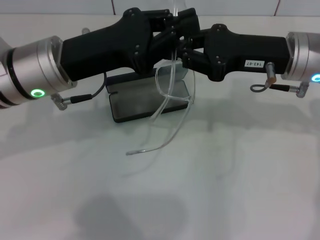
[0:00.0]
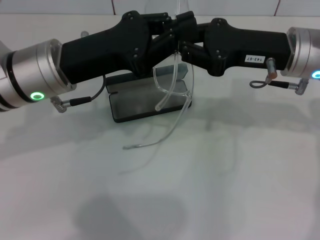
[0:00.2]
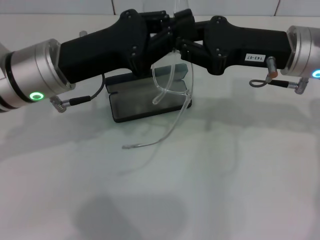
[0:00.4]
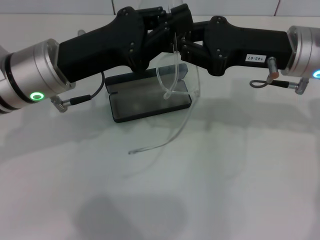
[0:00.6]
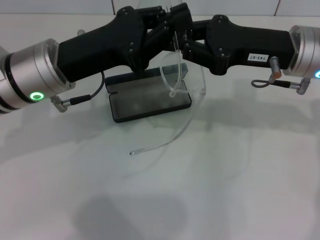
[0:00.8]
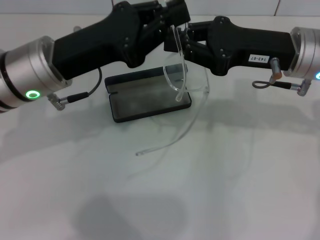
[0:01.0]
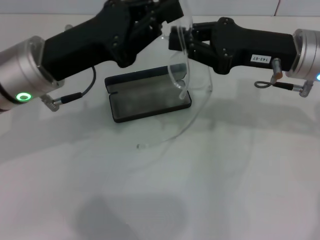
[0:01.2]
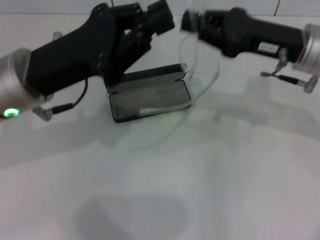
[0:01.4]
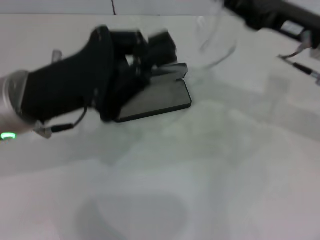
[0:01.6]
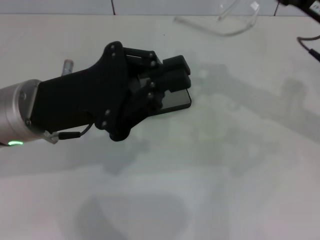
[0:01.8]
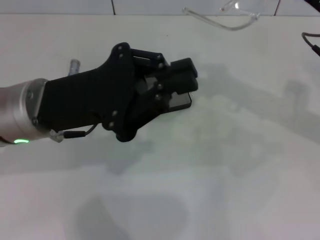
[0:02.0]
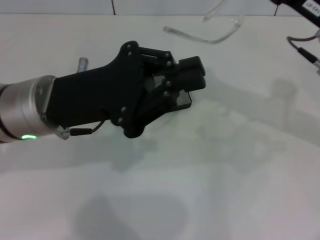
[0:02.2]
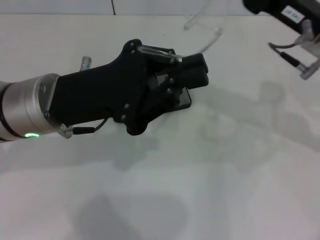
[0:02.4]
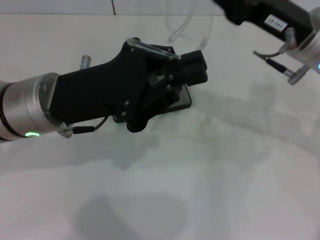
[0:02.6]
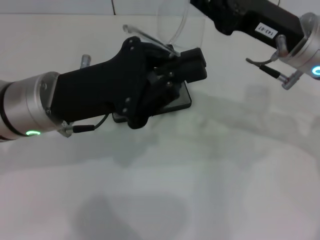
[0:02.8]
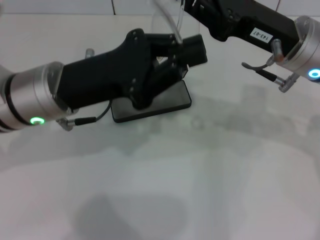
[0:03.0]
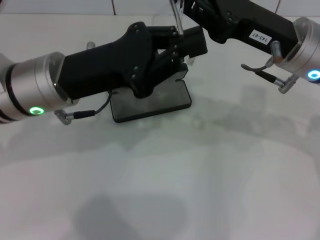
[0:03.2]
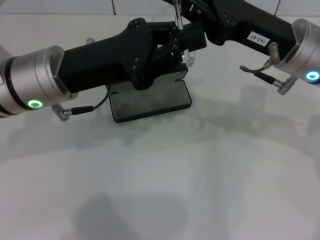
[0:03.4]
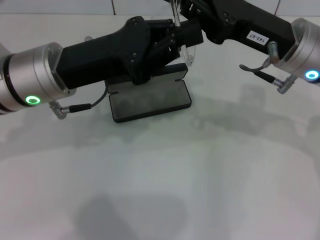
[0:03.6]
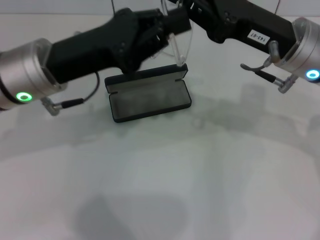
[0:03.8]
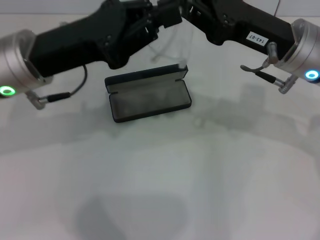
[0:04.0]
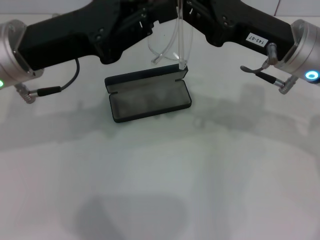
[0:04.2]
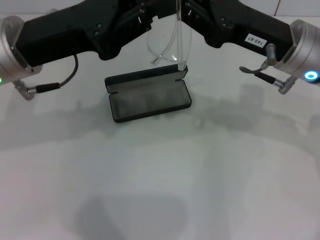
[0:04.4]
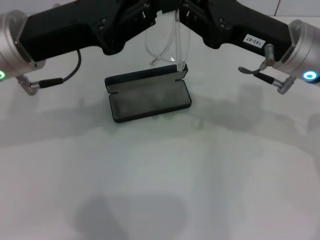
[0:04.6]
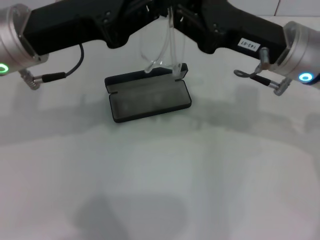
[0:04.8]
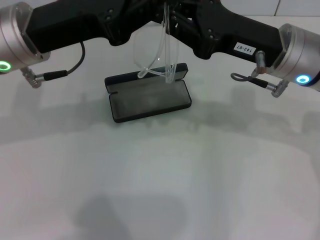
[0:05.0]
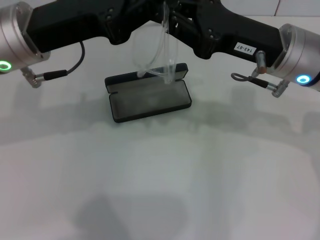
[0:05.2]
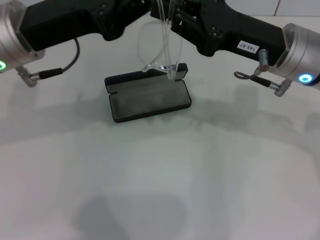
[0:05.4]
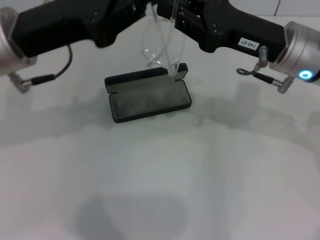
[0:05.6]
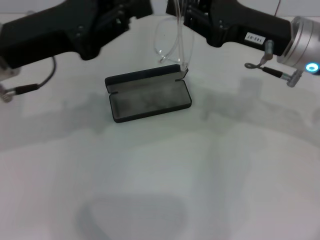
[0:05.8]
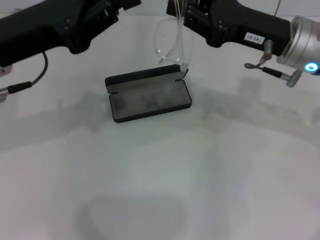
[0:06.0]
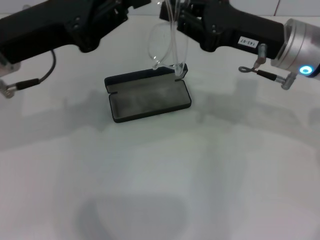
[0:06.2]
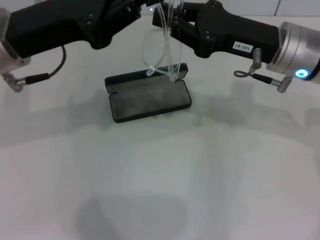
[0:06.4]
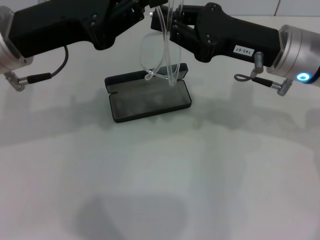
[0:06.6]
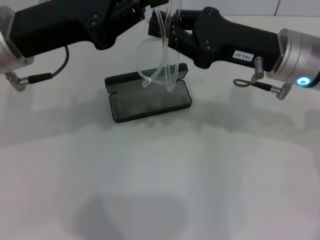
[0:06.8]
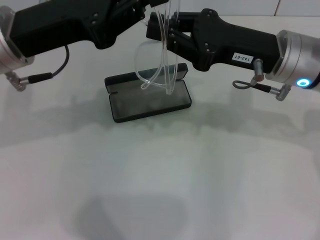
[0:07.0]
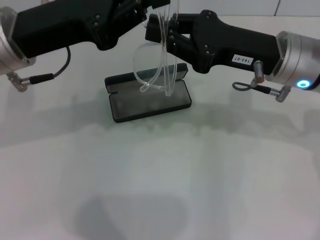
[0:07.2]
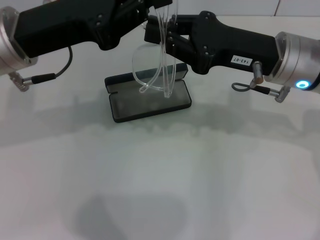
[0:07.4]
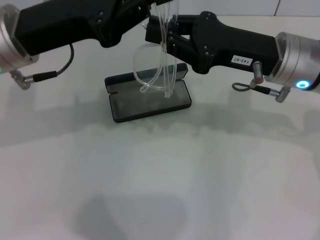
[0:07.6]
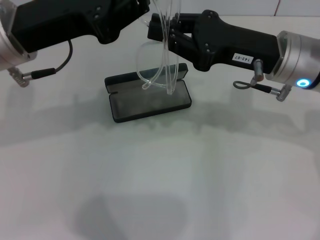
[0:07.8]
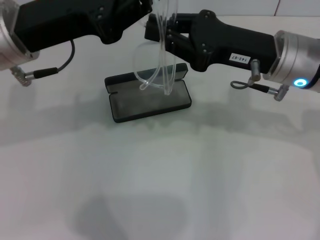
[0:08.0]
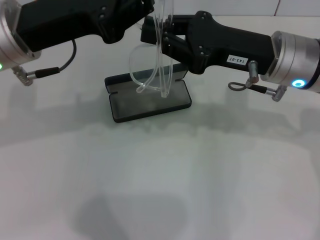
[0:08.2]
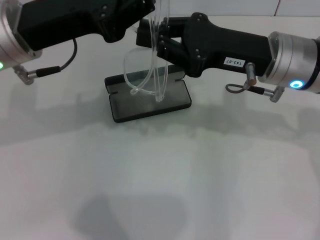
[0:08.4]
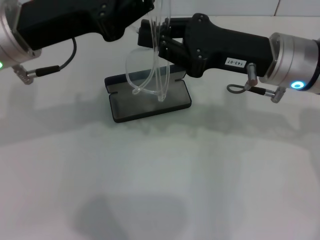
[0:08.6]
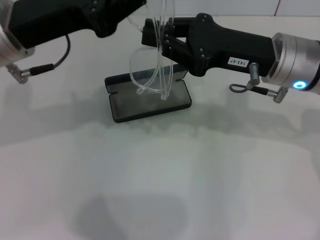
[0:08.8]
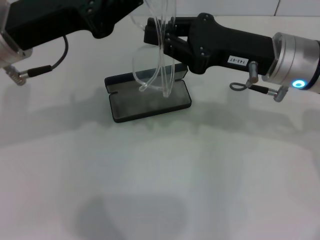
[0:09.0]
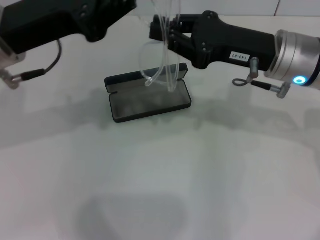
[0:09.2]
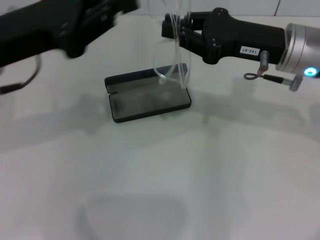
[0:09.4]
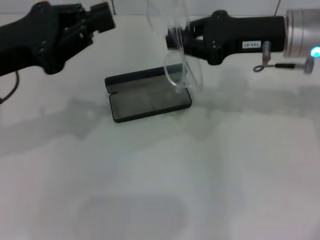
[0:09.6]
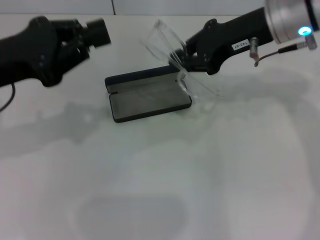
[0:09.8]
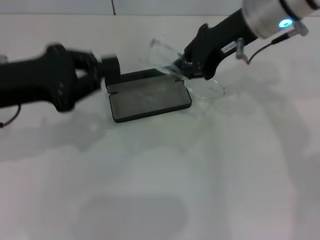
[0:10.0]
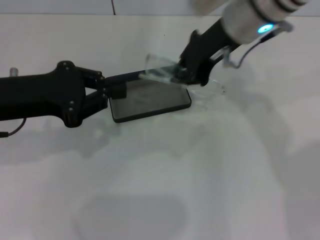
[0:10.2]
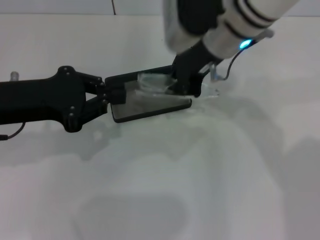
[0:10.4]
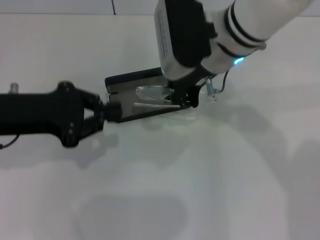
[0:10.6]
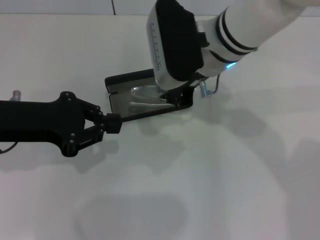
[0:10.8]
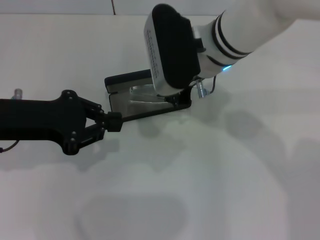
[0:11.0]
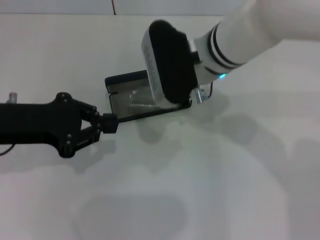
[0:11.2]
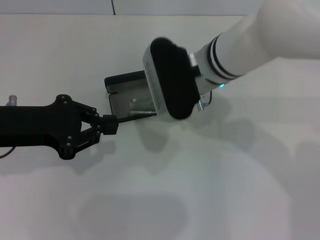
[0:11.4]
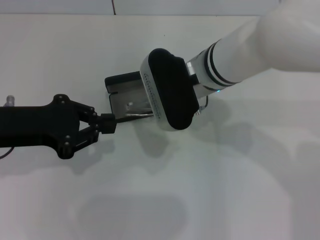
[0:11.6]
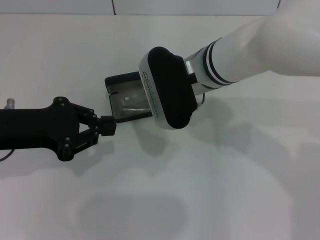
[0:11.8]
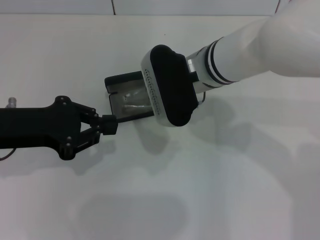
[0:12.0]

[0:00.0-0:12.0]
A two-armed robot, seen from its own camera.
Step, 0:00.0 to 0:08.4: Fold the frame with your left hand.
0:01.6 to 0:03.0: The right gripper shifts approximately 5 cm to the left.
0:03.0 to 0:04.4: The left gripper ends up some 5 cm from where it was.
0:04.4 to 0:07.6: There are only small adjustments of the grippers.
0:07.6 to 0:09.0: Both grippers stay about where they are.
0:09.0 to 0:10.4: The right gripper is displaced to the left by about 10 cm. Meanwhile the left gripper goes roughly 5 cm to the left.
0:10.4 to 0:12.0: The right gripper heads downward, covering some 5 cm.

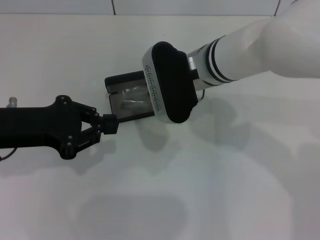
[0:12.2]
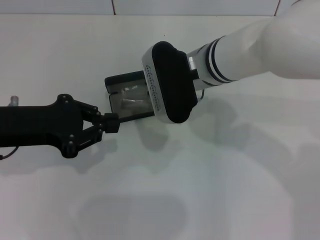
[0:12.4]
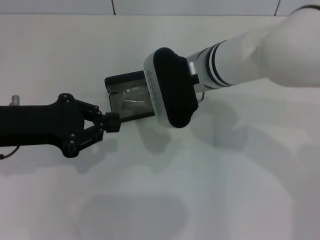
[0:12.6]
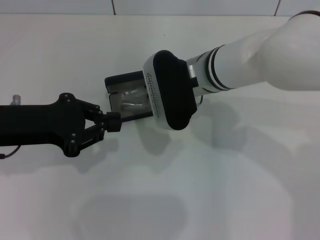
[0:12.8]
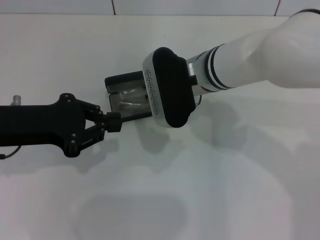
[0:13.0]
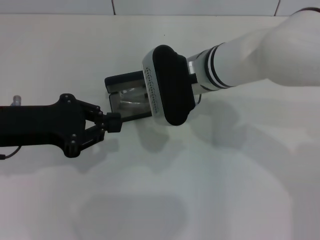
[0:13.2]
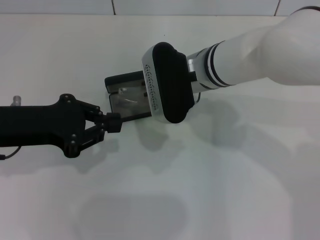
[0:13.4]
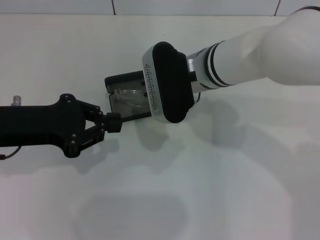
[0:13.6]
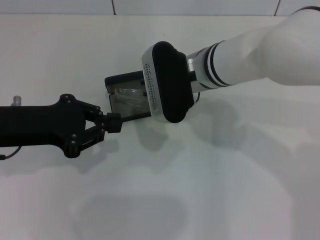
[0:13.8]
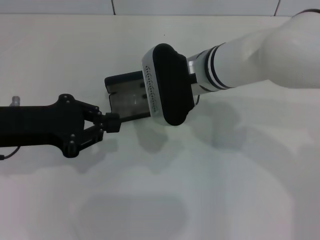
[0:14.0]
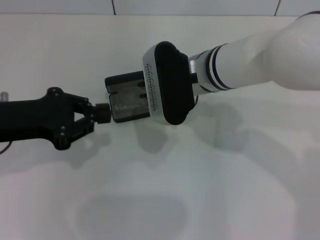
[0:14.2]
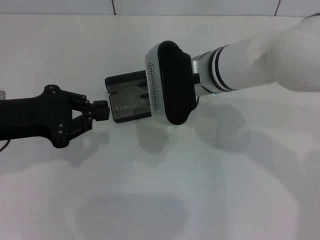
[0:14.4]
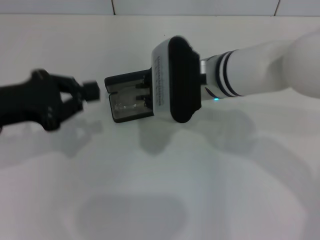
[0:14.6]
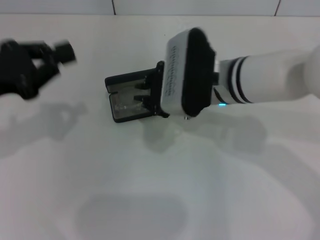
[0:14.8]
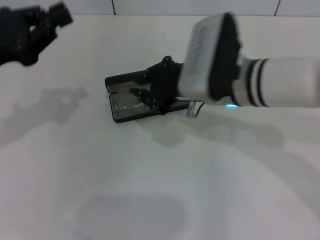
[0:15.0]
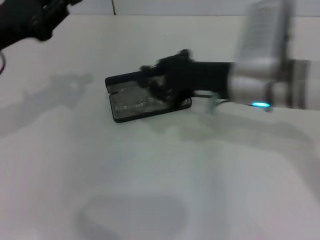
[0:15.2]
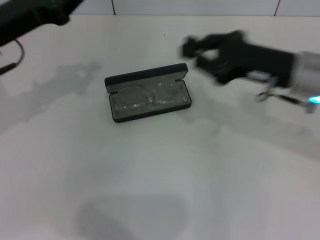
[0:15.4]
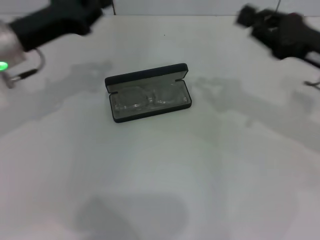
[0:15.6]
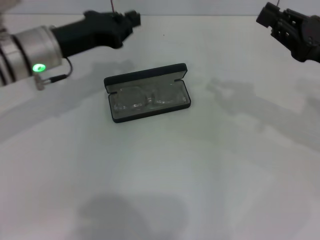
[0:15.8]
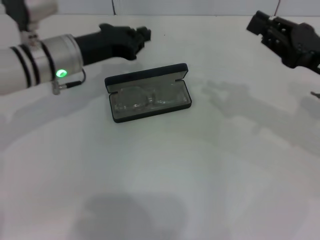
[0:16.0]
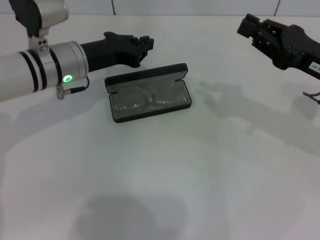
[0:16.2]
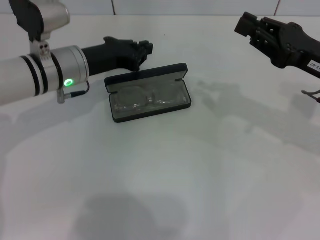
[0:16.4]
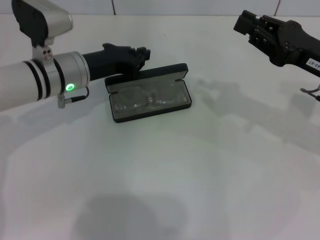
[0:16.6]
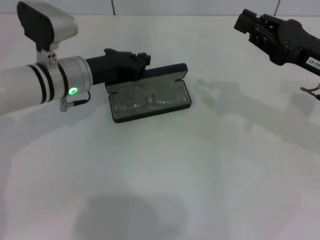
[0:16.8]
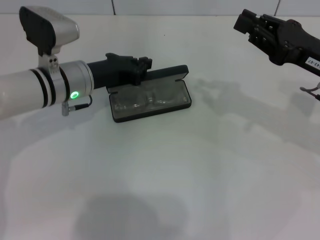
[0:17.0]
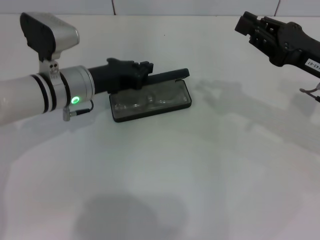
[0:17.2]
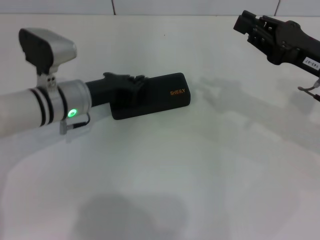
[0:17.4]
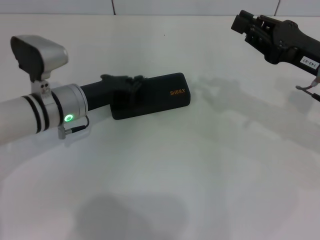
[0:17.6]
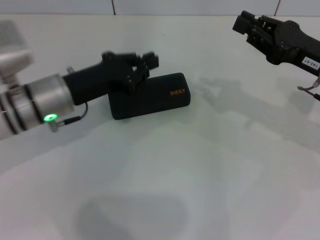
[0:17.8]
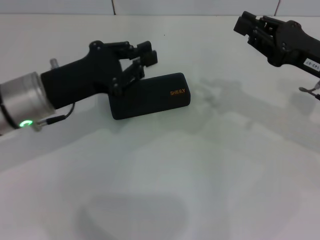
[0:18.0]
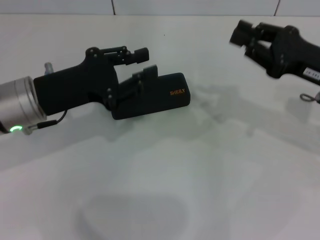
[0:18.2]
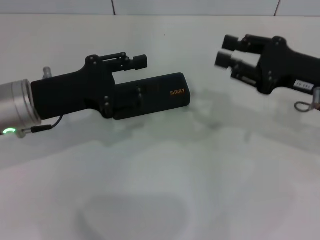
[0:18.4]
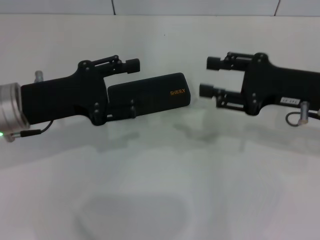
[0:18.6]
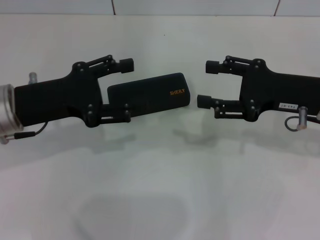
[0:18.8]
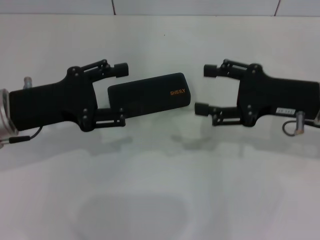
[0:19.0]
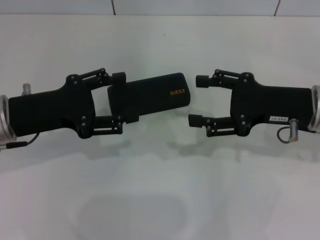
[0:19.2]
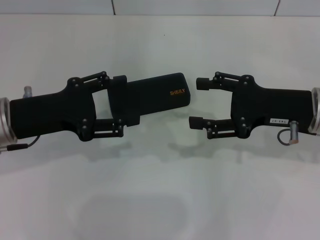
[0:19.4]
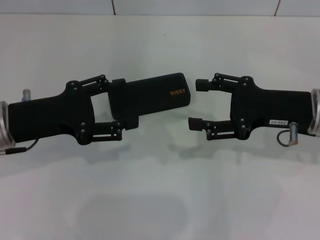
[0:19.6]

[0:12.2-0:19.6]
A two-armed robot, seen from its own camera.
Step, 0:14.2 to 0:17.2: Close the glasses case with your left hand.
0:12.2 to 0:13.6: Both grippers stay about where they are.
0:13.6 to 0:15.2: The right gripper travels to the right by roughly 10 cm; the left gripper shifts by about 5 cm.
0:15.2 to 0:16.6: The left gripper heads to the right, downward and forward, covering some 15 cm. Meanwhile the right gripper shifts approximately 15 cm to the right.
0:16.6 to 0:18.2: The left gripper shifts approximately 10 cm backward.
0:18.2 to 0:19.6: The right gripper opens its fingers; the left gripper opens.

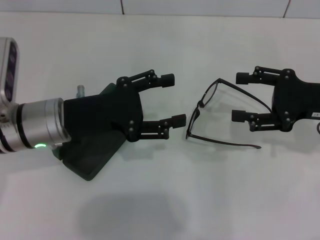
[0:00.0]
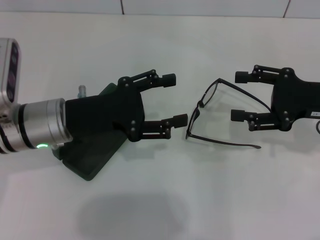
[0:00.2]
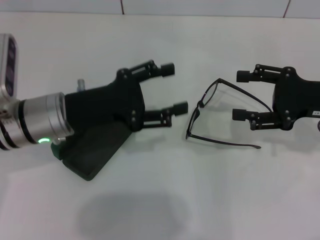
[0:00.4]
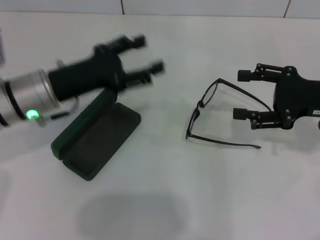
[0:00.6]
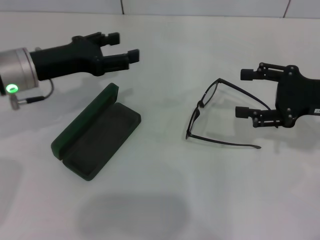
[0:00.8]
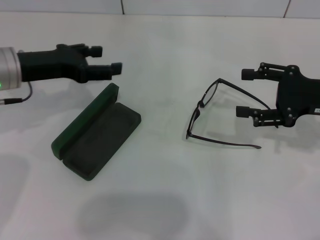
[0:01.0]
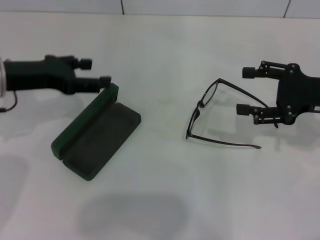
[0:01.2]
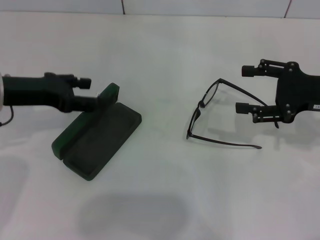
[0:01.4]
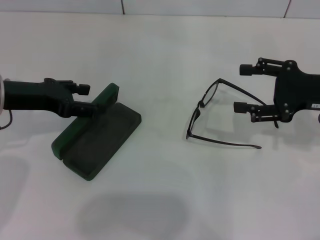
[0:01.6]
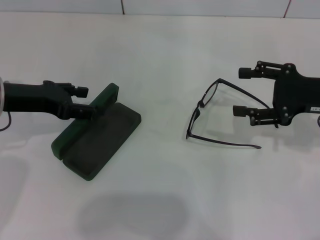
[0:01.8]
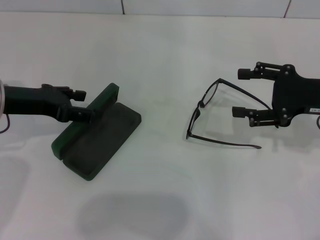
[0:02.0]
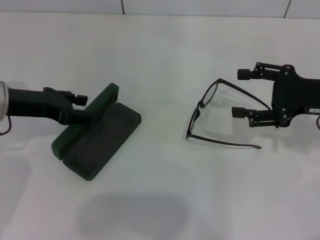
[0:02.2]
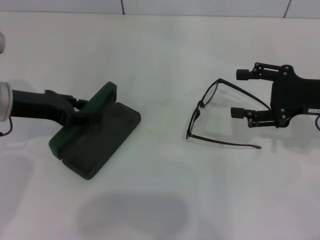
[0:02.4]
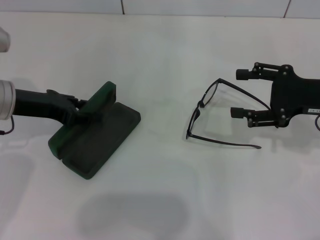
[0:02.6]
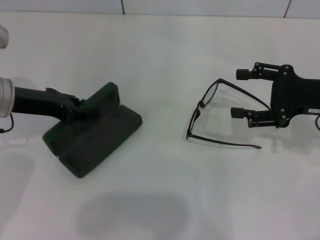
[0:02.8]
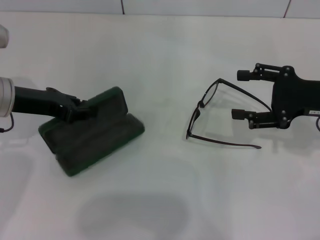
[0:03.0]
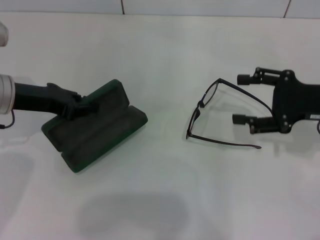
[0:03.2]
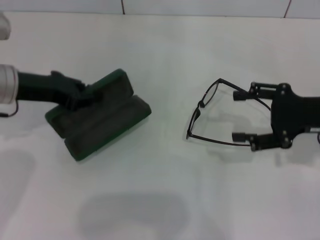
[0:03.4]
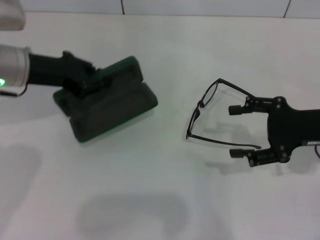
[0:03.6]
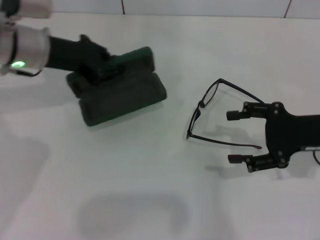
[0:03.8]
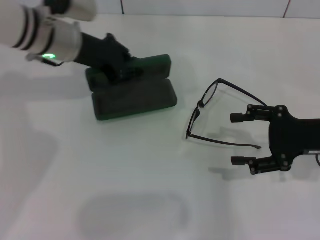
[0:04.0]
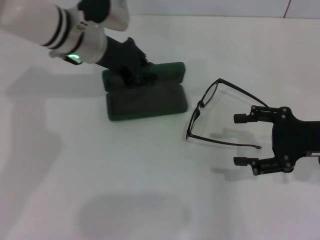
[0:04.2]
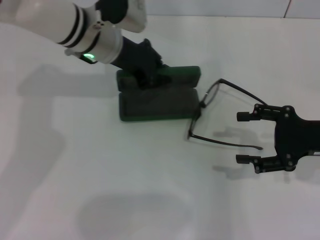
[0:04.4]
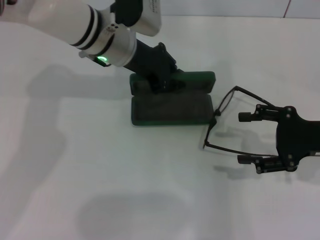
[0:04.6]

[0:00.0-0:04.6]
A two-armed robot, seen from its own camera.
Step, 0:00.0 to 0:03.0: Grab the glasses case with your left hand.
0:00.0 to 0:01.6: The left gripper is displaced to the left by some 10 cm.
0:01.6 to 0:03.0: The left gripper closes.
0:03.0 to 0:04.6: The left gripper heads to the right and forward, covering approximately 20 cm.
